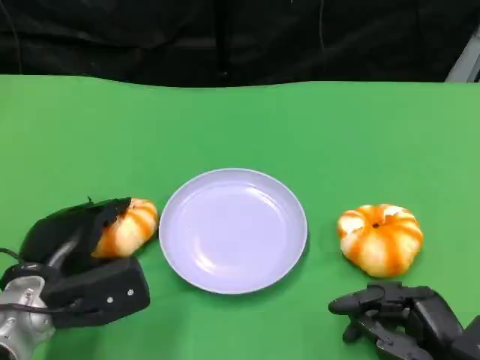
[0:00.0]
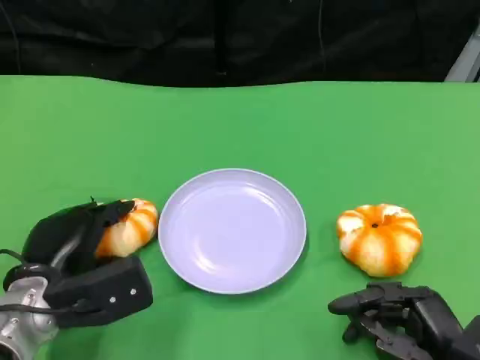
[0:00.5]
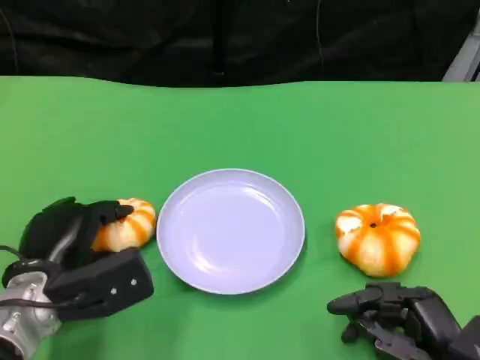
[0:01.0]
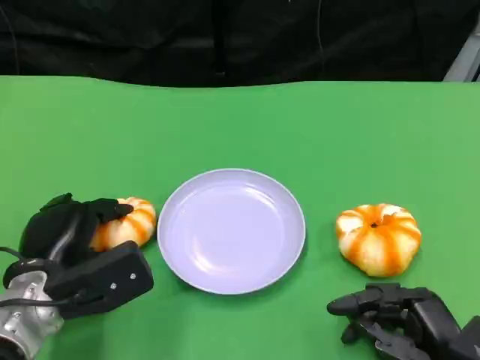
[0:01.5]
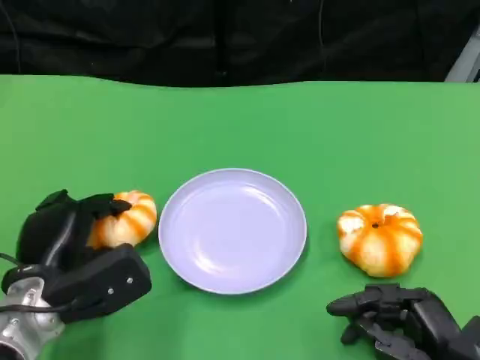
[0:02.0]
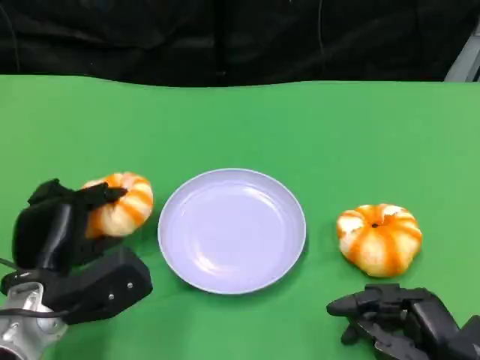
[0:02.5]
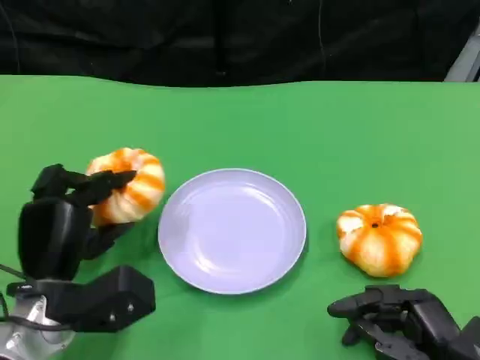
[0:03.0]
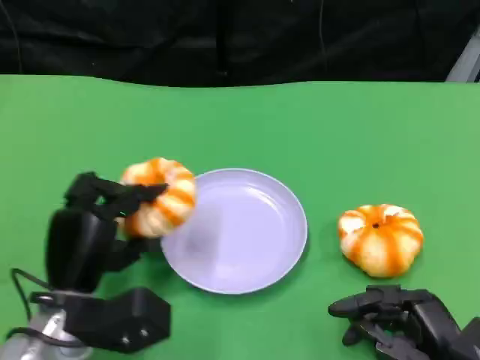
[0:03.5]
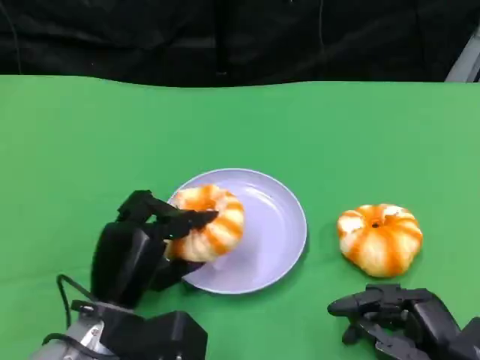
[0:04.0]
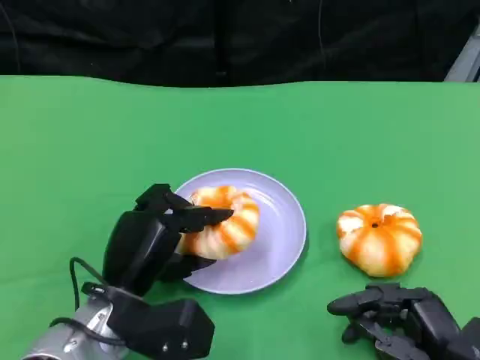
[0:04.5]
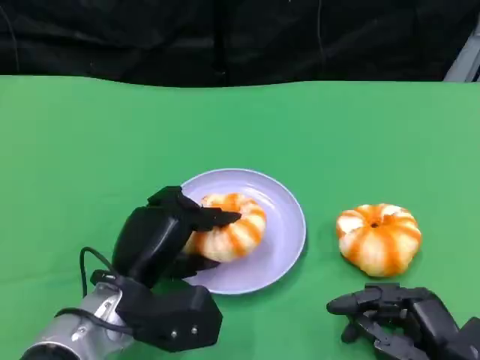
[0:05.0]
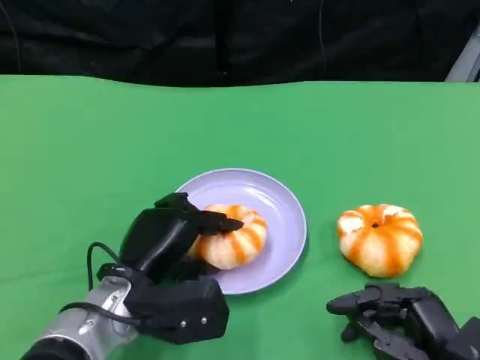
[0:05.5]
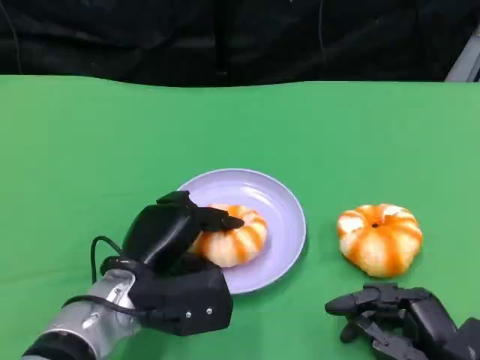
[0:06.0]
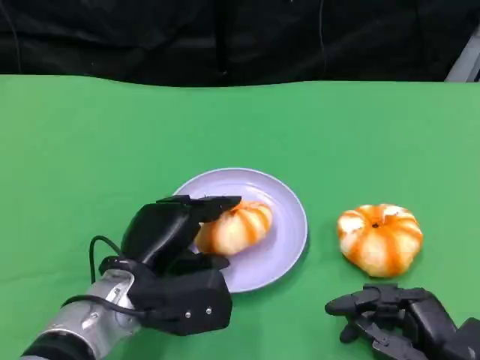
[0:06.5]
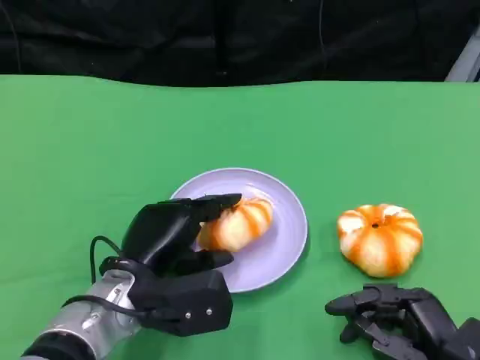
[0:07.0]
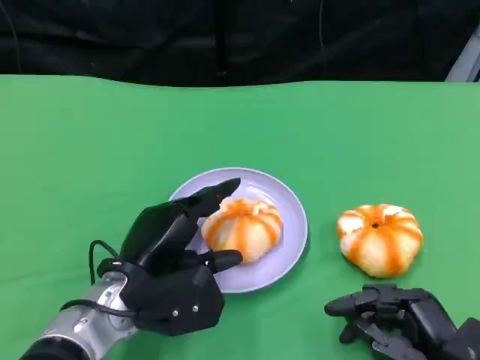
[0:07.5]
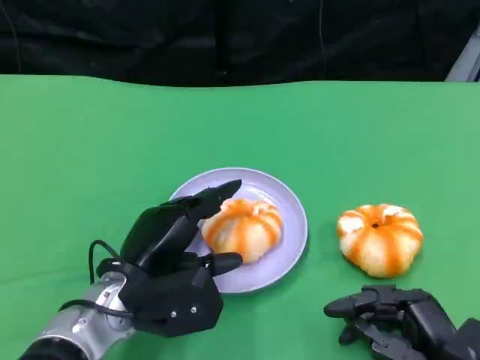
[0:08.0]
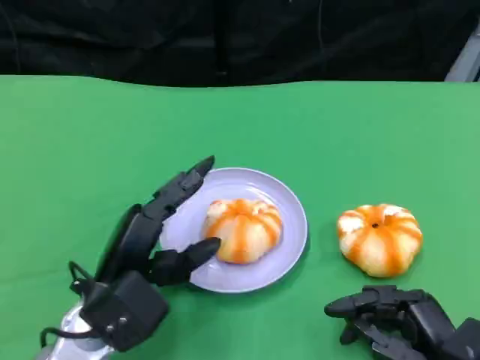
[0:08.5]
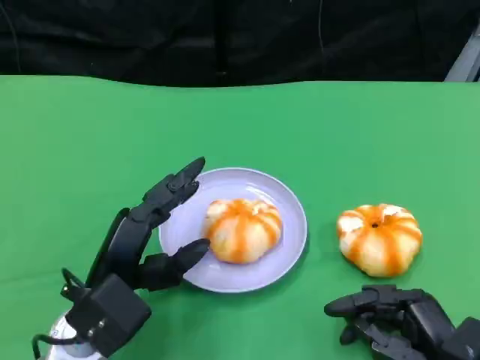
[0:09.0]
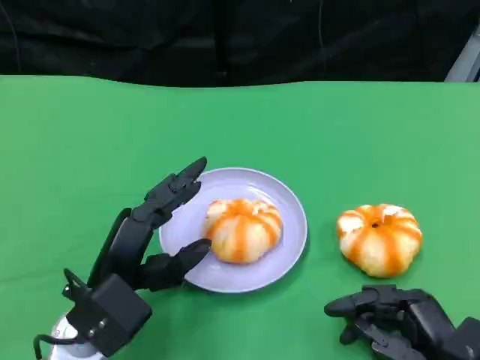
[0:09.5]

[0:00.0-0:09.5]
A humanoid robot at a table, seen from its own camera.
Task of the whole recording: Grasp the bread from the table and place it into the plate.
0:00.0 to 0:02.0: The hands make only small movements.
0:02.0 to 0:04.0: The left hand goes approximately 5 cm to the right.
0:04.0 to 0:05.5: The hands move only a little.
0:05.5 to 0:07.5: The hands make only small movements.

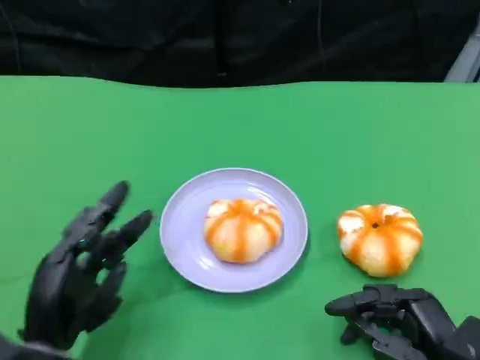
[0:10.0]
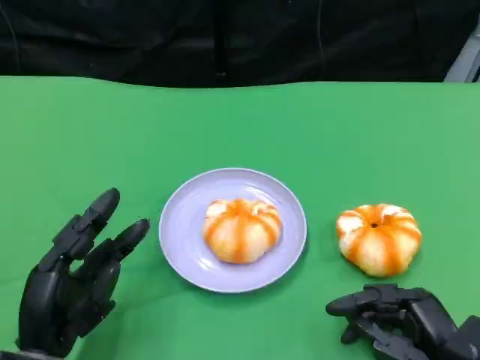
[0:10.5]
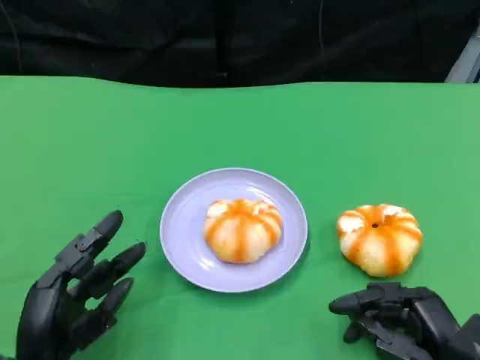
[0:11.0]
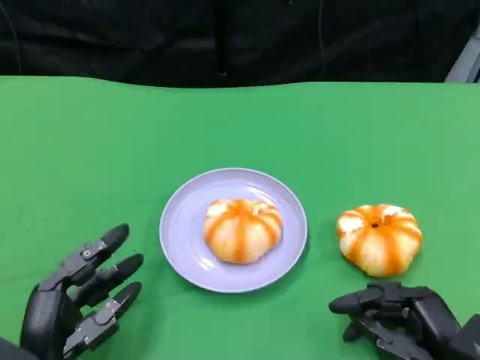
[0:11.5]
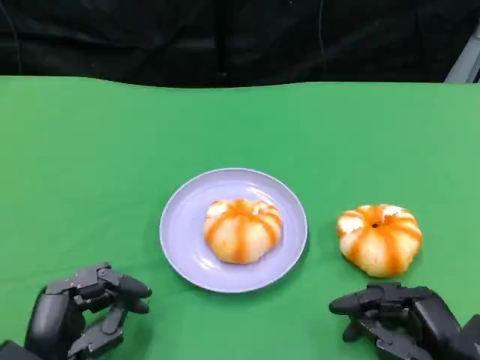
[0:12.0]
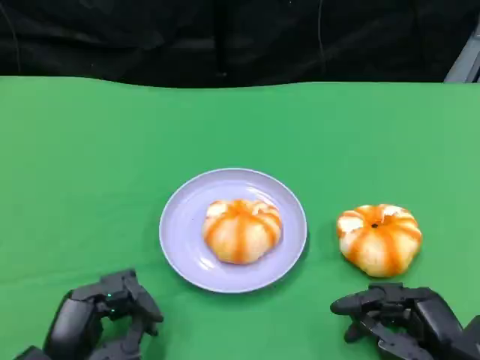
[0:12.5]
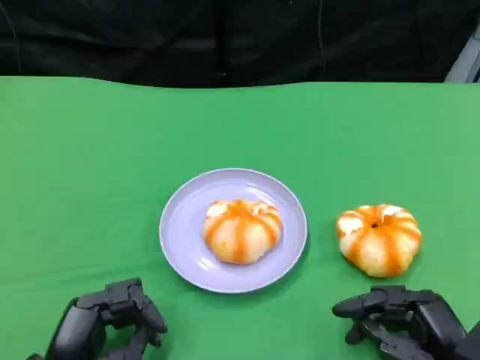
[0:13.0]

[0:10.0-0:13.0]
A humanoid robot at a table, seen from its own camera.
Task of the whole recording: Grasp the bread from the table and place it into the plate.
0:10.0 to 0:13.0: The hands stay close to where they were, moving slightly.

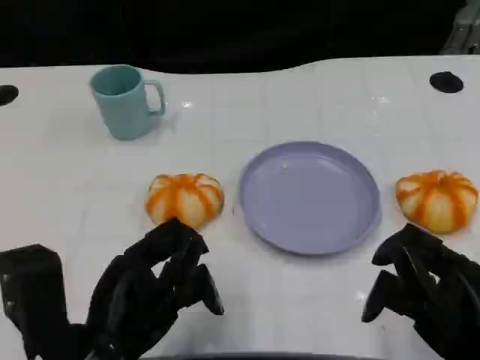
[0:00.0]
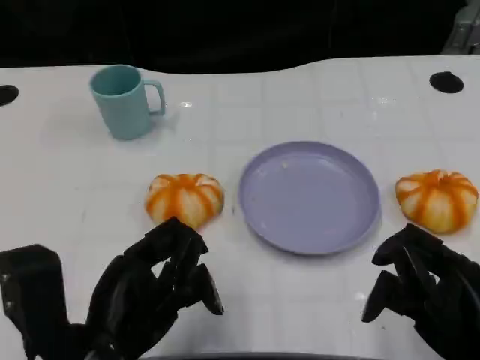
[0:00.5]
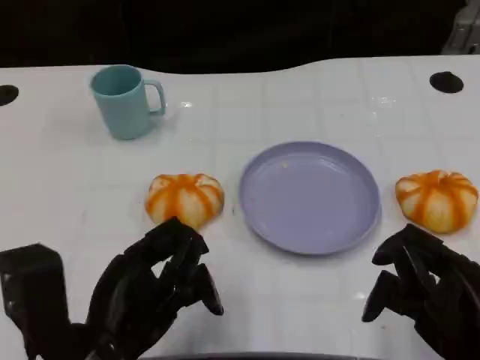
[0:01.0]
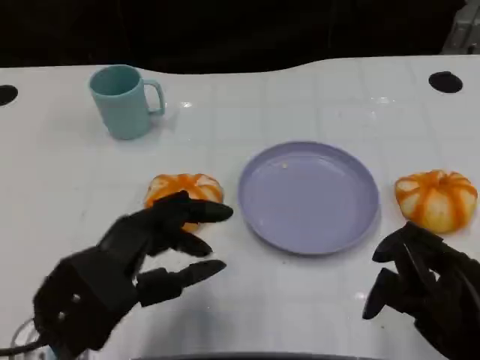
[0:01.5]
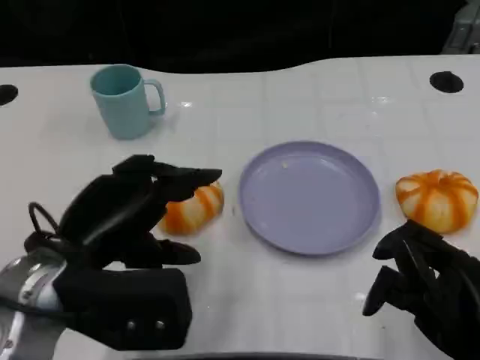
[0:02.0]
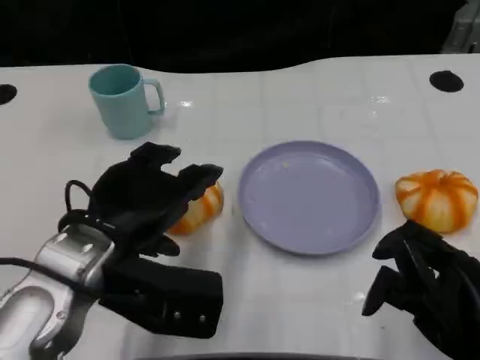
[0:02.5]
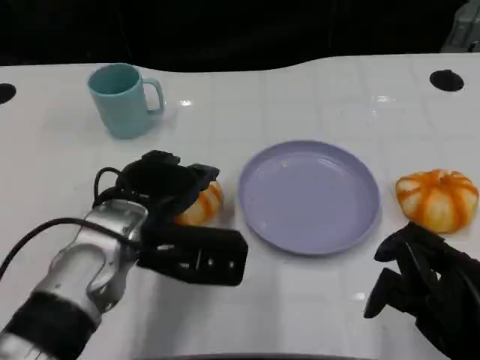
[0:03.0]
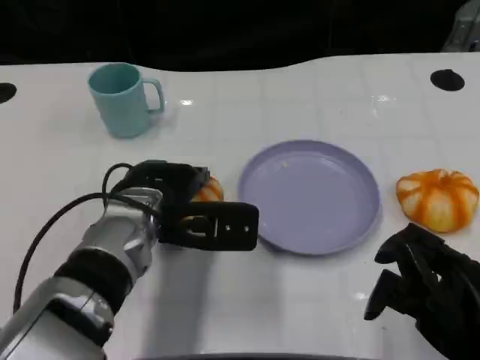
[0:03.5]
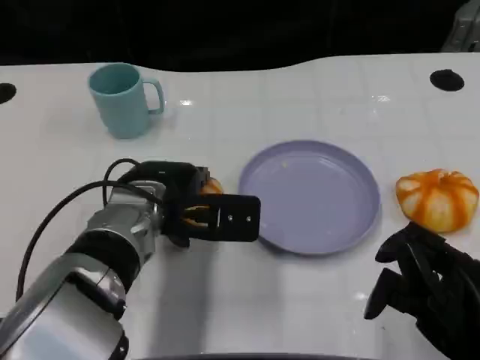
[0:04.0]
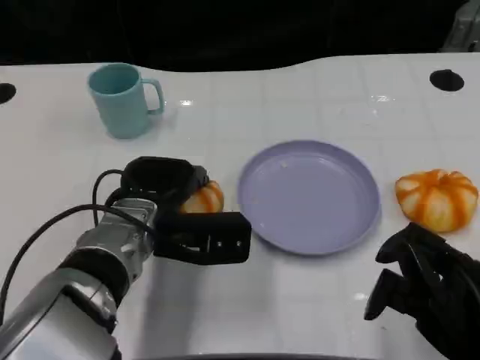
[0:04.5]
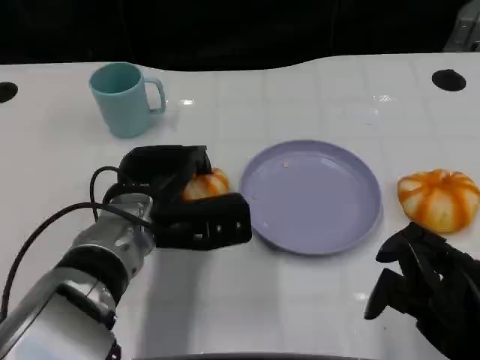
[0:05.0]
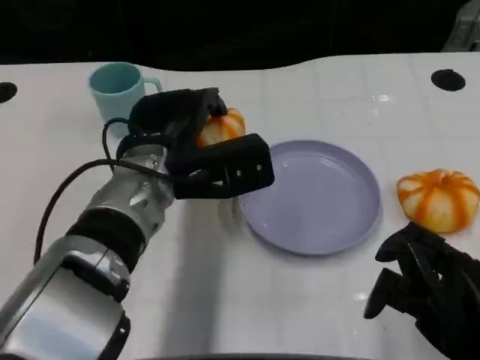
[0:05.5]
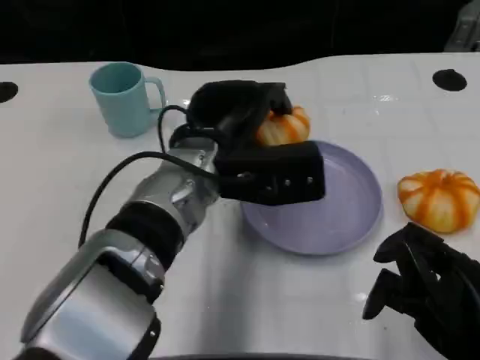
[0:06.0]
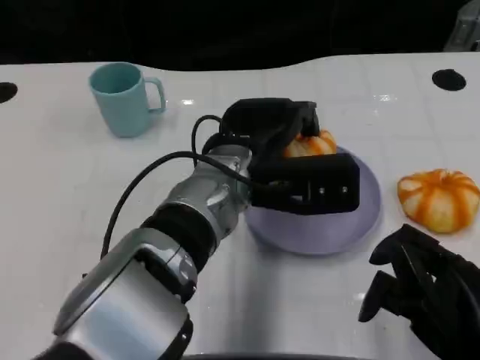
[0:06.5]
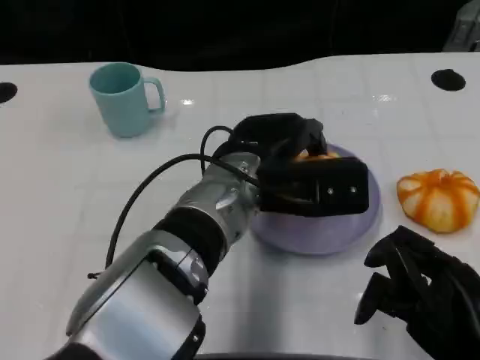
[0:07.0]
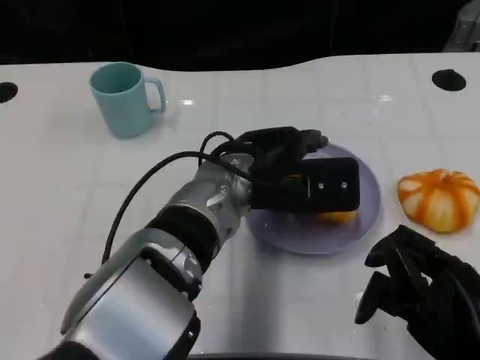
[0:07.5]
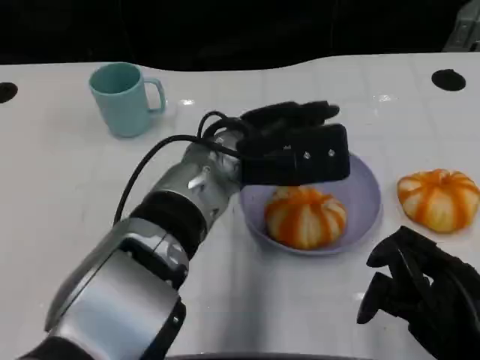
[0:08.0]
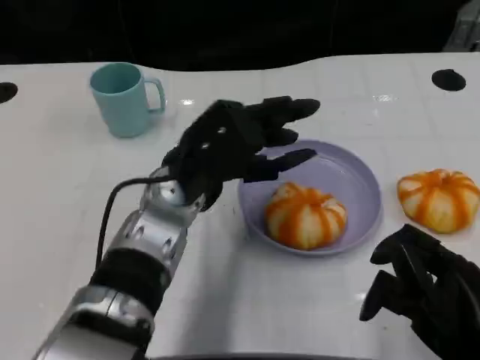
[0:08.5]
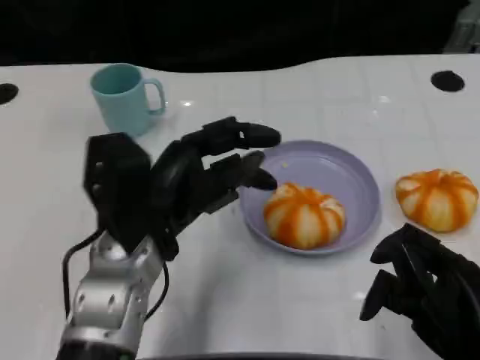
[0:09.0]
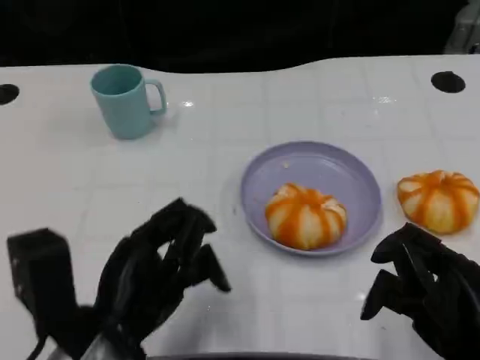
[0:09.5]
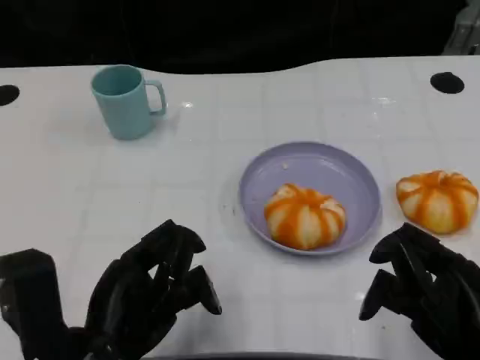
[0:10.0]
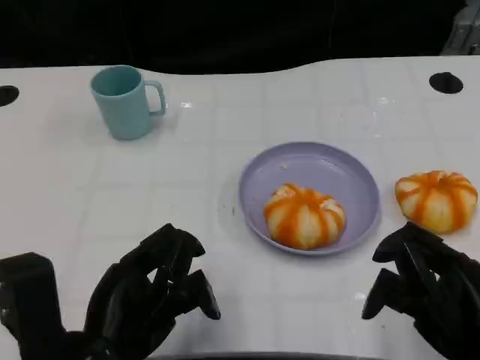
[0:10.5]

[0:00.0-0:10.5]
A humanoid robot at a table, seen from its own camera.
Task of the whole recording: Grasp the bread from the table and place it into the plate.
0:00.0 to 0:02.0: The left hand shifts approximately 5 cm forward and upward.
0:02.0 to 0:04.0: The left hand is displaced forward, to the right and downward by some 15 cm.
0:04.0 to 0:06.5: The left hand heads to the right, covering roughly 10 cm.
0:06.5 to 0:08.5: The left hand shifts approximately 5 cm to the left.
0:08.5 to 0:10.5: The left hand is displaced backward and to the left by some 15 cm.

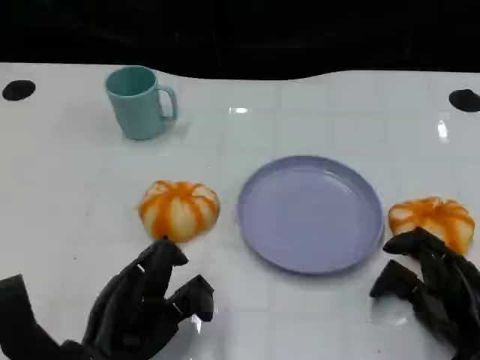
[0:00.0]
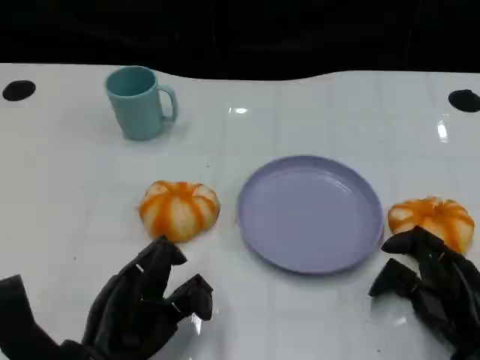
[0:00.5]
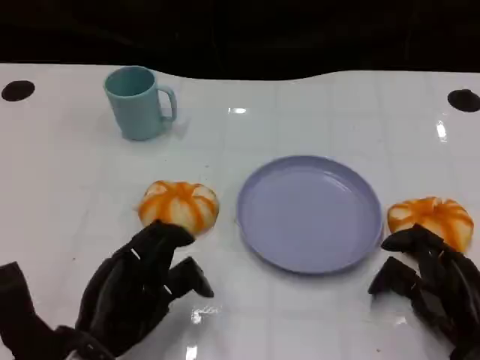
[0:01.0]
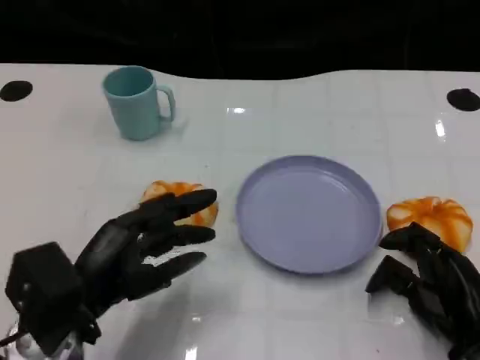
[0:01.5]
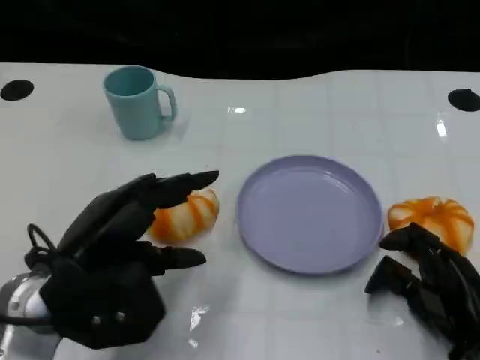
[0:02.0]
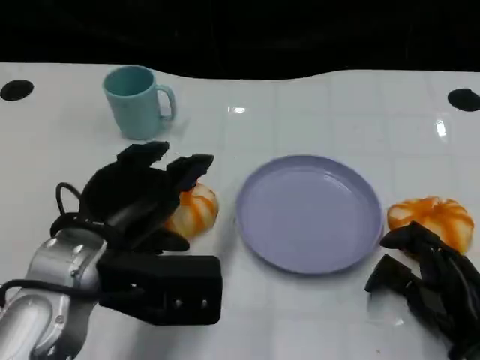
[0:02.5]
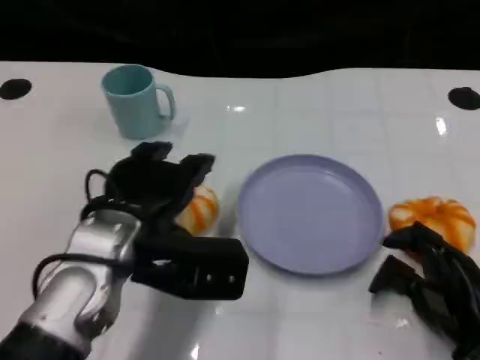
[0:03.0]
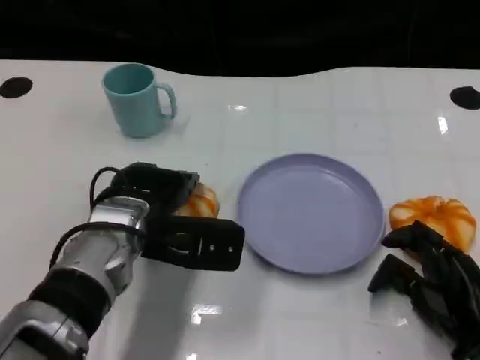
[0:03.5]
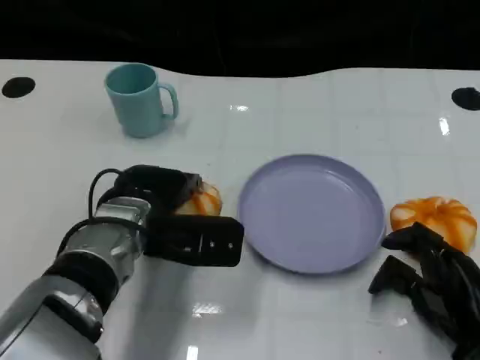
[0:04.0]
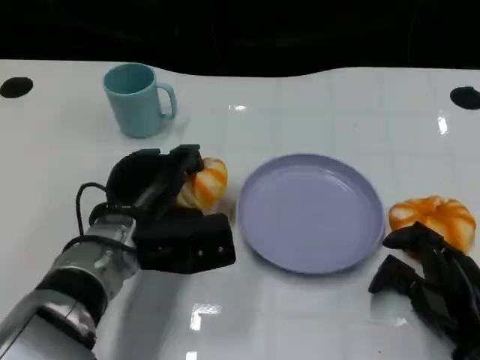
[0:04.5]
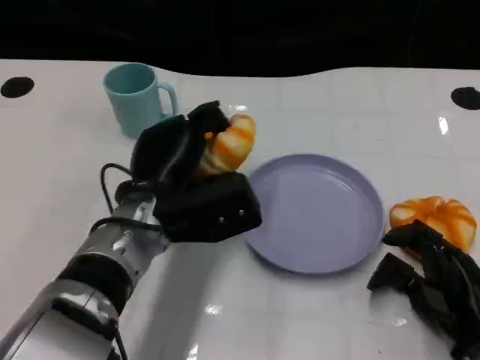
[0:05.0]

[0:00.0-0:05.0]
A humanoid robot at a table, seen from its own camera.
Task of the whole recording: Grasp the bread from the table and place it into the plate.
0:00.0 to 0:02.5: The left hand goes about 10 cm upward and forward.
0:02.5 to 0:05.0: The left hand heads forward and to the right, covering about 10 cm.
